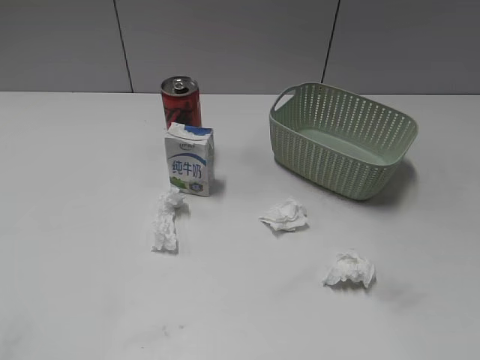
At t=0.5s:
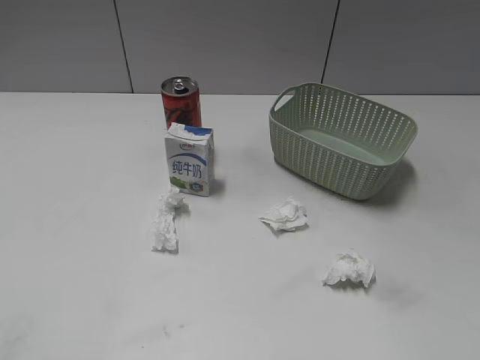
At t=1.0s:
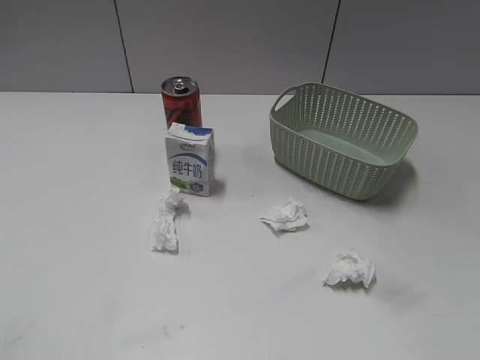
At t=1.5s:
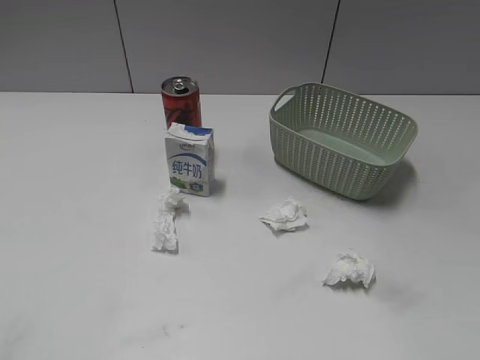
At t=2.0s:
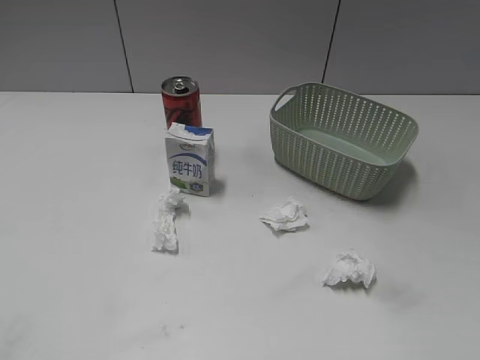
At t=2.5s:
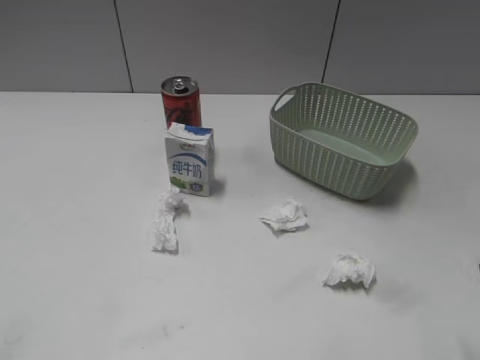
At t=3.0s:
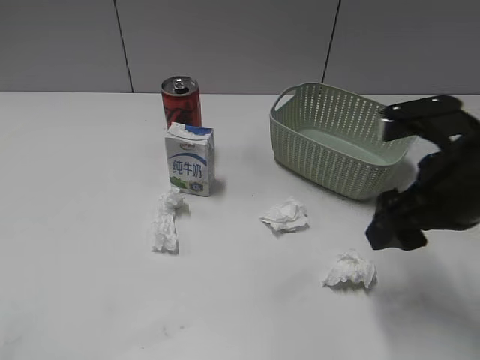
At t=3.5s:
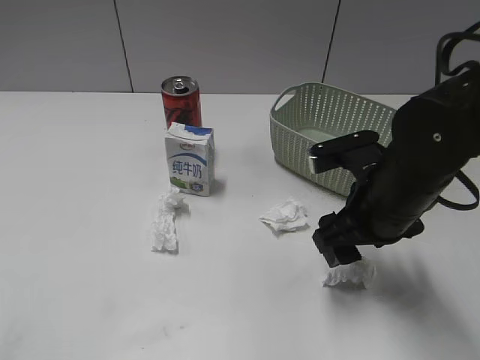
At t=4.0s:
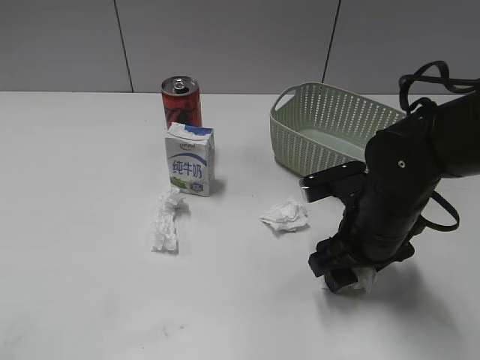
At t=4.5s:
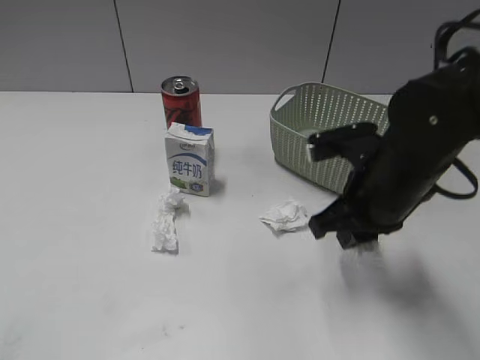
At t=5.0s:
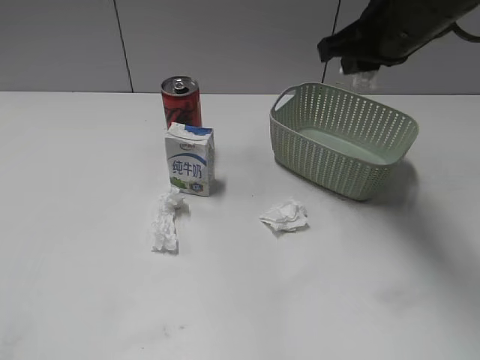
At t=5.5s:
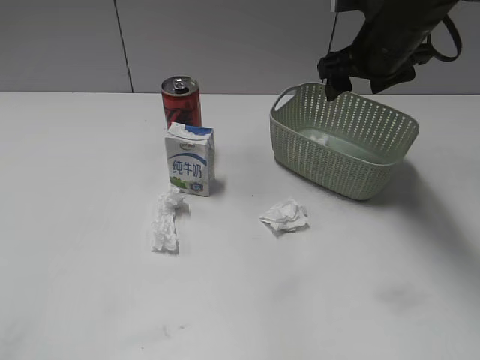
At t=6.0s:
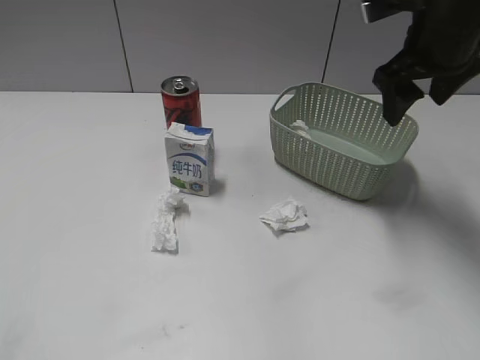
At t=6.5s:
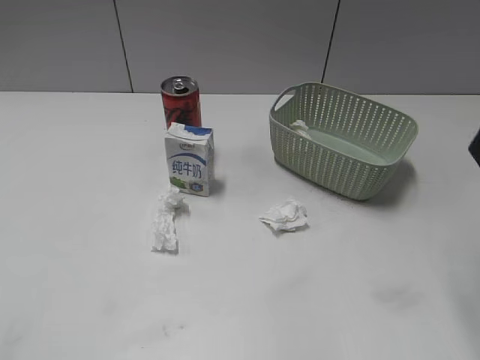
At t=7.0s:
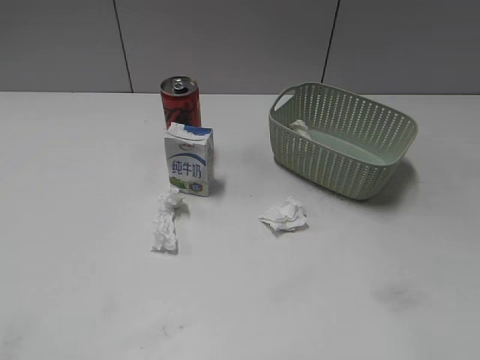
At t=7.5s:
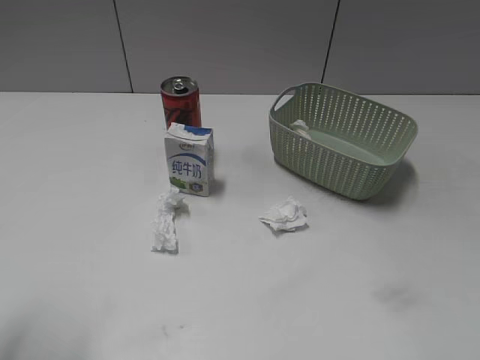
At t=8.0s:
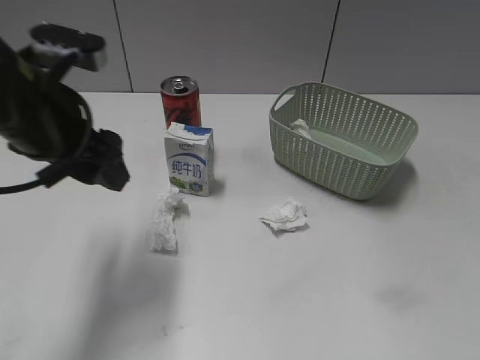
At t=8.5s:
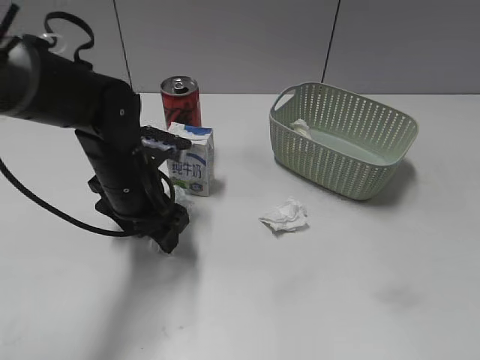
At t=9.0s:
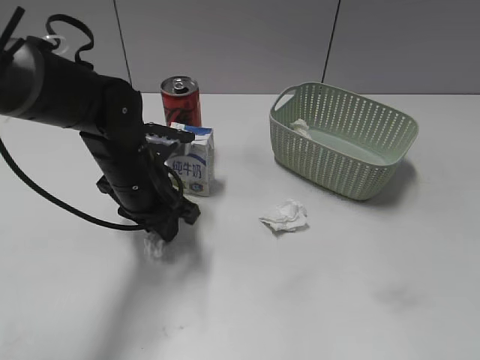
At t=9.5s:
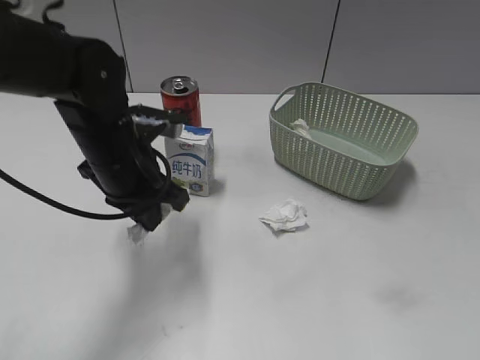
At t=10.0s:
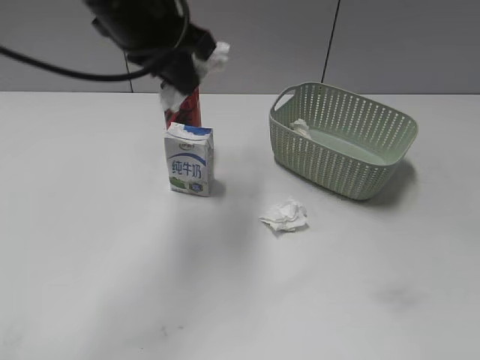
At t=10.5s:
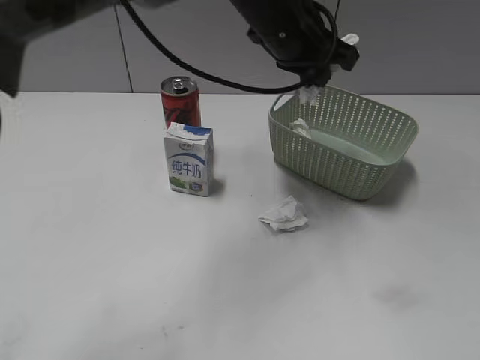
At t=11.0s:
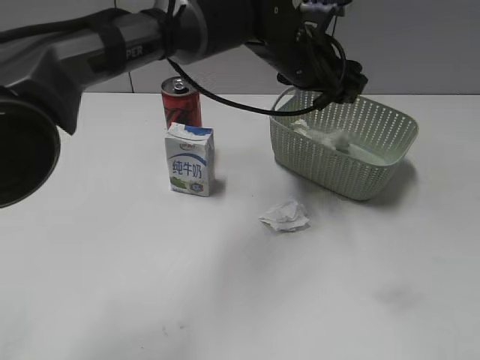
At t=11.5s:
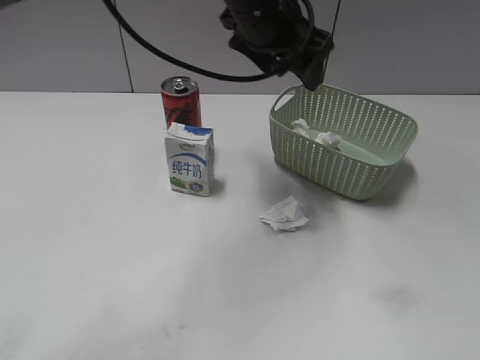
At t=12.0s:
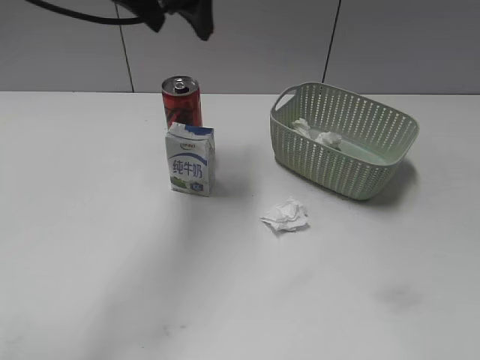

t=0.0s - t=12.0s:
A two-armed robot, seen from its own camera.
Step, t=3.0s - t=4.0s: Grasp the waste paper with right gripper.
Step, t=4.5s - t=5.5s: Place the waste paper in the basket with right gripper.
Step, t=6.0s - t=9.0s: Grasp the waste paper with left gripper.
Step, t=9.5s - t=11.0s: Place the waste paper in the basket with left gripper.
t=2.0s - t=4.0s: The right gripper is displaced forward, to the left and downward by about 35 cm.
t=4.0s - t=6.0s: The right gripper swings up and down, approximately 15 cm each way, with 2 reversals, and closes, then reopens.
t=6.0s - t=8.0s: The left gripper shifts approximately 30 cm forward and to the right. The right gripper goes some 35 cm backward.
t=8.0s - t=10.0s: The left gripper goes some 10 cm to the right and forward, moves approximately 15 cm downward and comes back, and closes up.
t=10.0s - t=12.0s: The left gripper moves forward, roughly 10 cm, goes to the right and returns, about 20 cm each way, and opens up.

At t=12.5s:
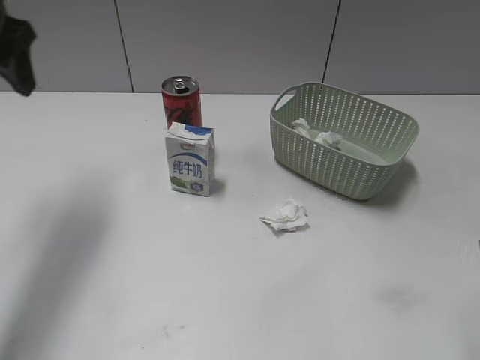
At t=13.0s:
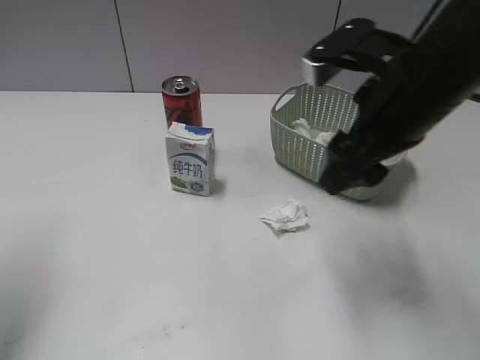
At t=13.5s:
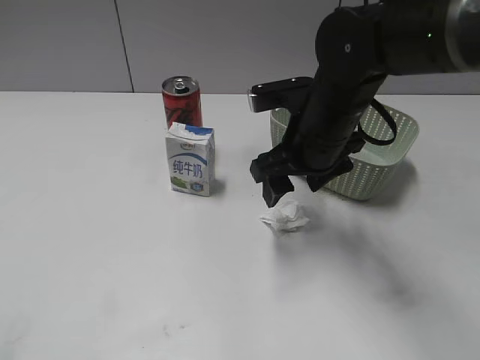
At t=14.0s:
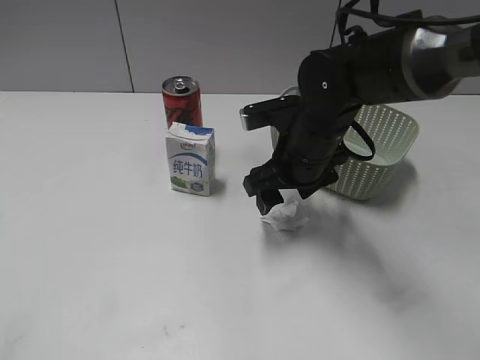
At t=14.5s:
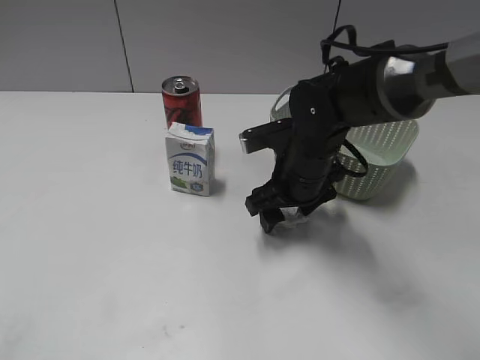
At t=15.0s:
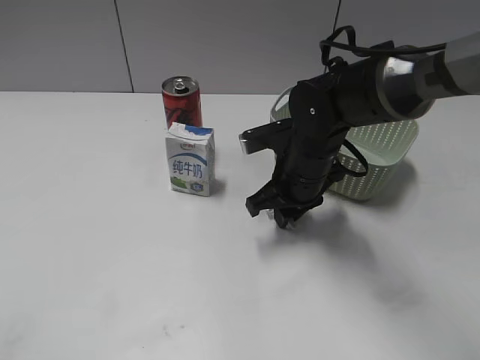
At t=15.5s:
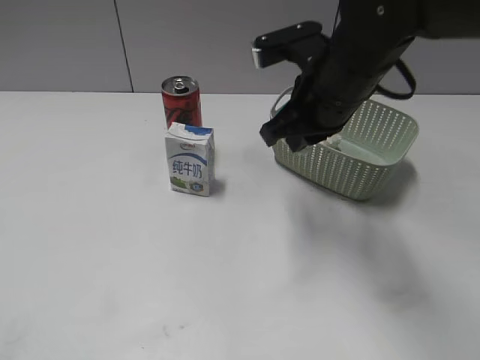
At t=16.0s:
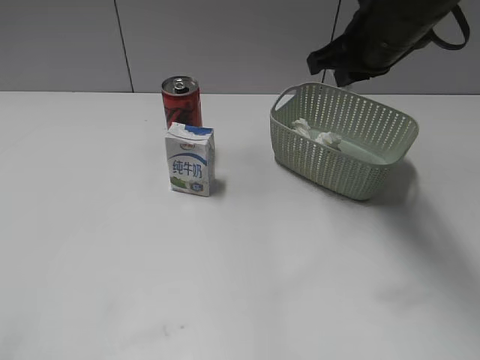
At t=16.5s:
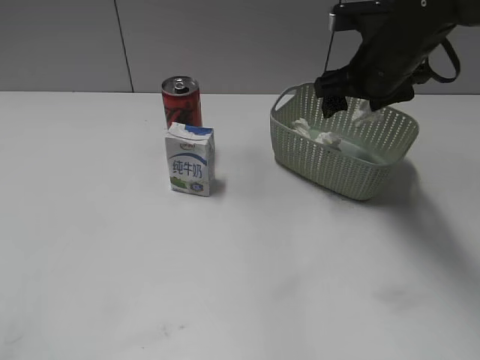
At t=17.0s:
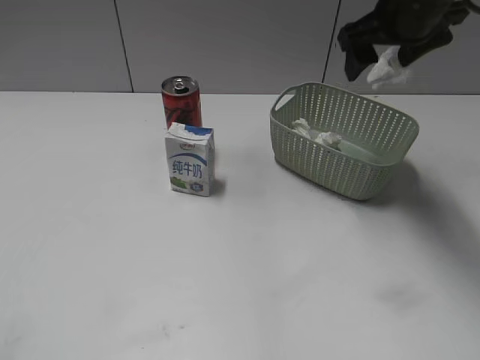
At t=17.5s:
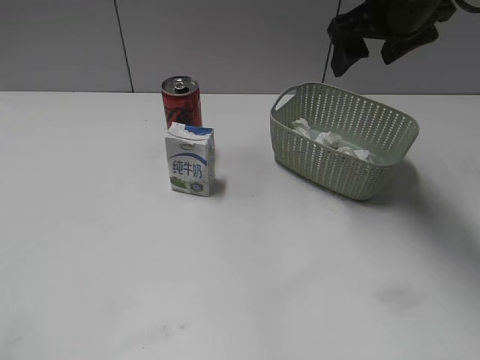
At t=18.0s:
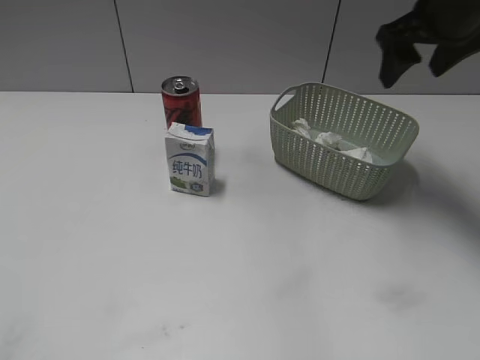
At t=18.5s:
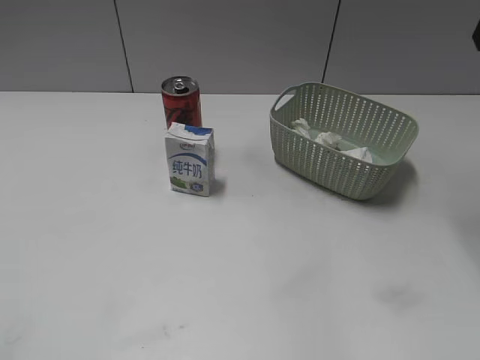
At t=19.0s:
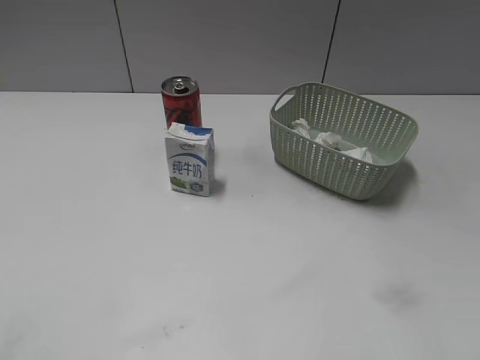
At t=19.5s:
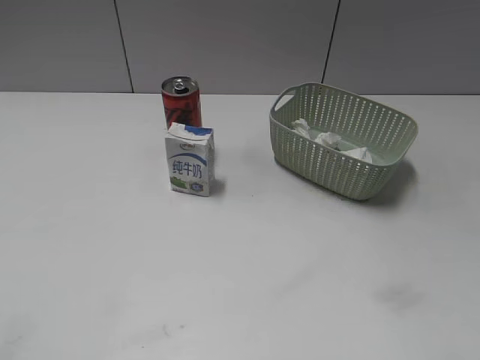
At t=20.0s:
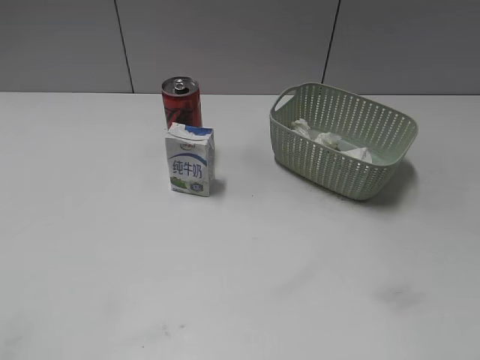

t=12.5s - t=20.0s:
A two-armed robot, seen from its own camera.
Step, t=12.5s - t=15.0s: Grasp the waste paper with right gripper.
Step, t=15.5s - t=17.5s: Place the waste paper in the basket with right gripper.
t=12.5s - t=14.5s: The left gripper shifts about 35 cm backward. Meanwhile the right gripper heads forward, to the left and downward, covering roughly 30 cm.
t=14.5s - t=16.5s: The right gripper heads upward, to the right and forward, covering roughly 15 cm, and closes, then reopens.
t=16.5s - t=18.0s: The right gripper heads upward, covering roughly 10 cm.
t=18.0s - t=20.0s: The right gripper goes about 35 cm backward.
